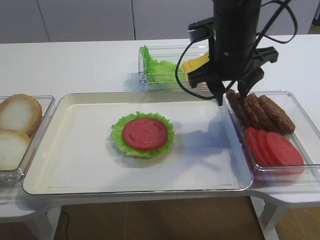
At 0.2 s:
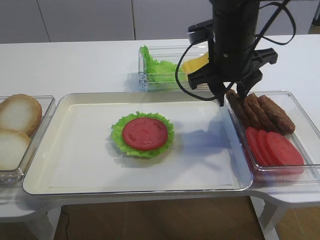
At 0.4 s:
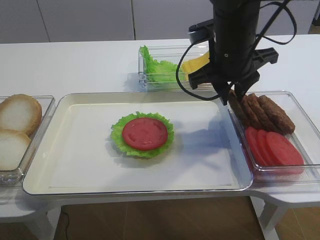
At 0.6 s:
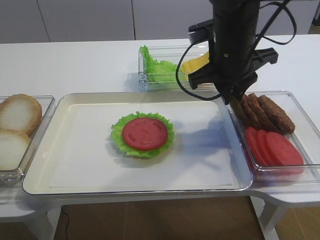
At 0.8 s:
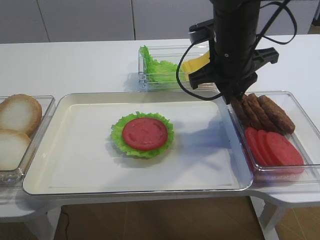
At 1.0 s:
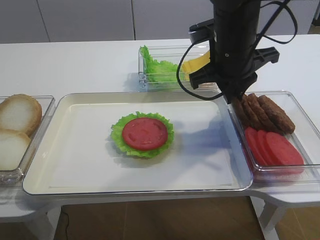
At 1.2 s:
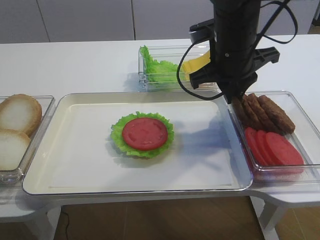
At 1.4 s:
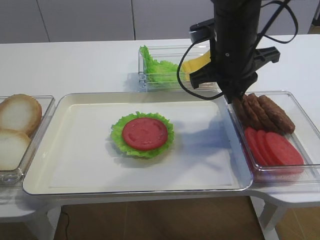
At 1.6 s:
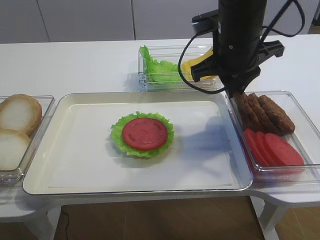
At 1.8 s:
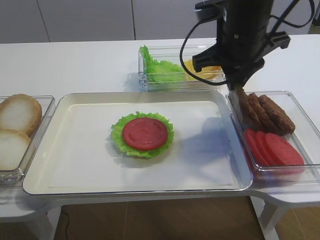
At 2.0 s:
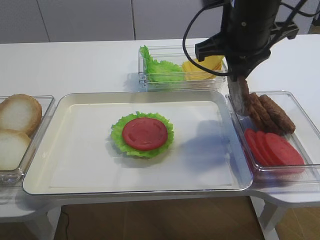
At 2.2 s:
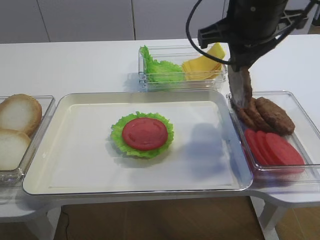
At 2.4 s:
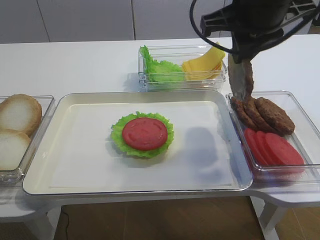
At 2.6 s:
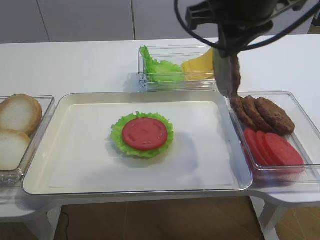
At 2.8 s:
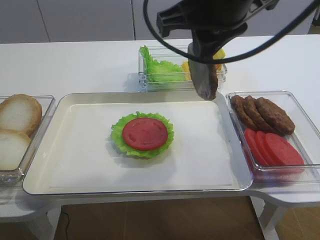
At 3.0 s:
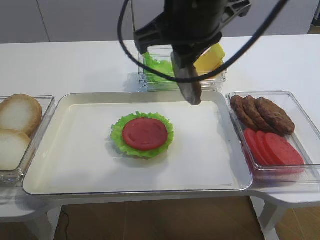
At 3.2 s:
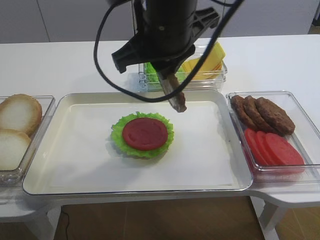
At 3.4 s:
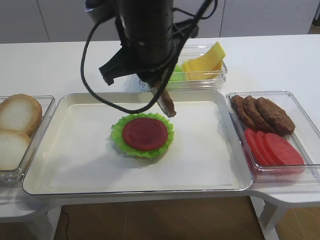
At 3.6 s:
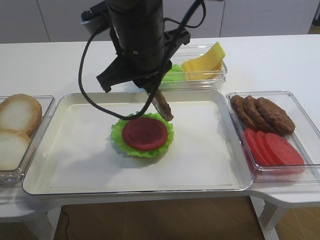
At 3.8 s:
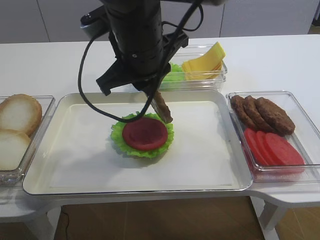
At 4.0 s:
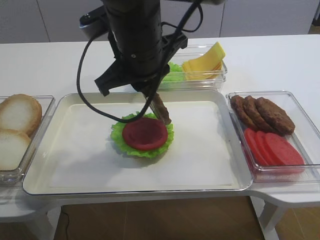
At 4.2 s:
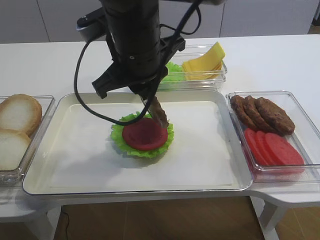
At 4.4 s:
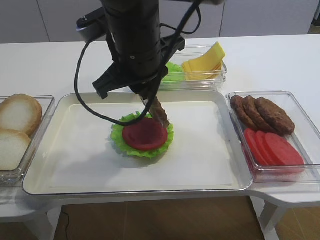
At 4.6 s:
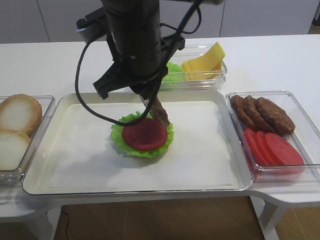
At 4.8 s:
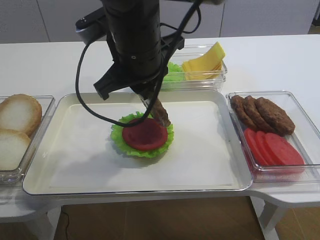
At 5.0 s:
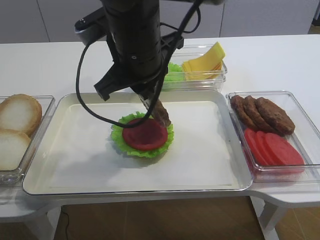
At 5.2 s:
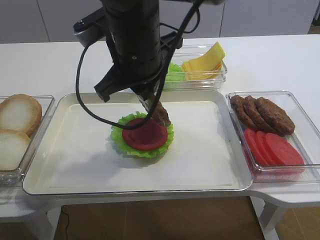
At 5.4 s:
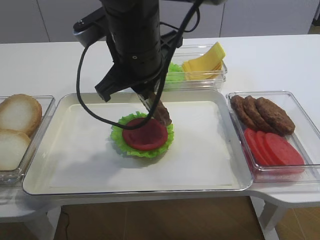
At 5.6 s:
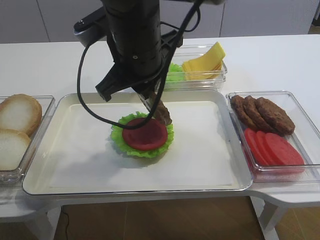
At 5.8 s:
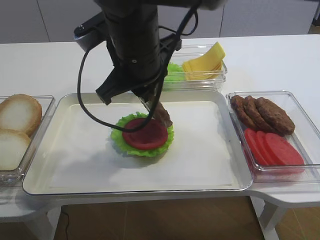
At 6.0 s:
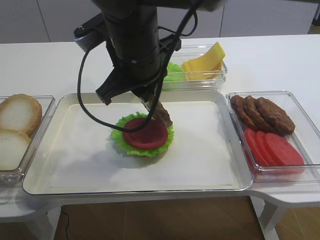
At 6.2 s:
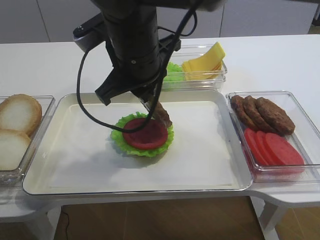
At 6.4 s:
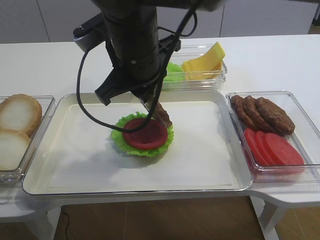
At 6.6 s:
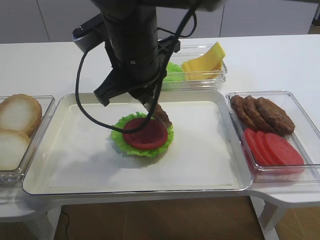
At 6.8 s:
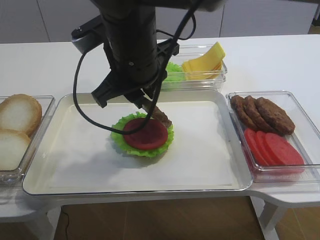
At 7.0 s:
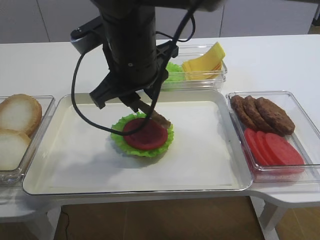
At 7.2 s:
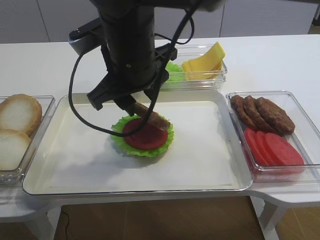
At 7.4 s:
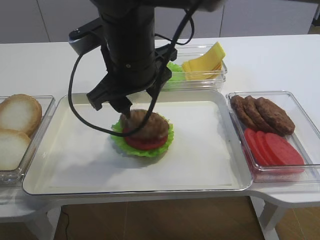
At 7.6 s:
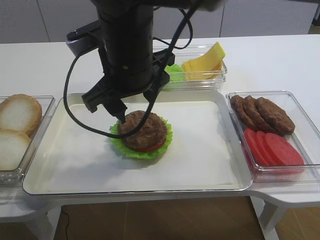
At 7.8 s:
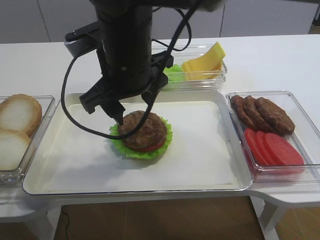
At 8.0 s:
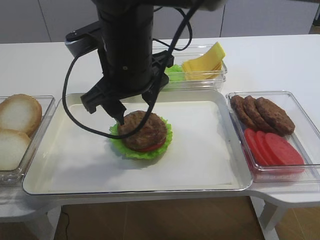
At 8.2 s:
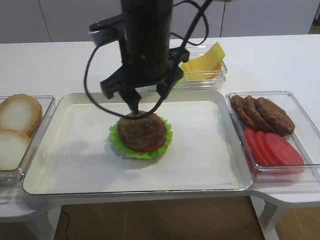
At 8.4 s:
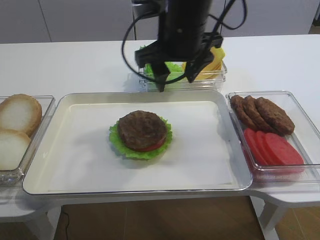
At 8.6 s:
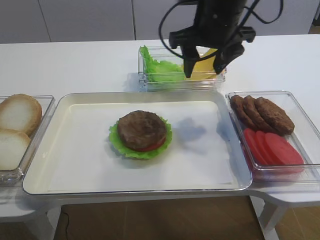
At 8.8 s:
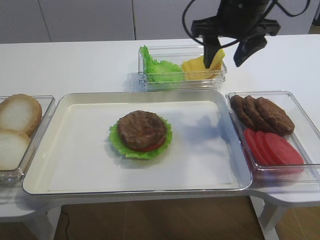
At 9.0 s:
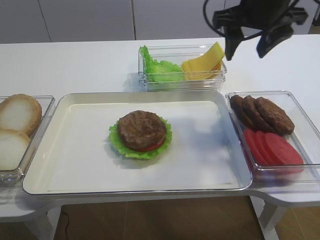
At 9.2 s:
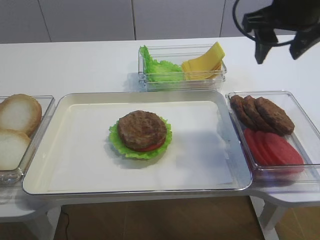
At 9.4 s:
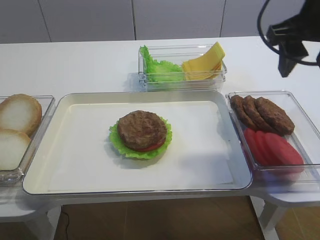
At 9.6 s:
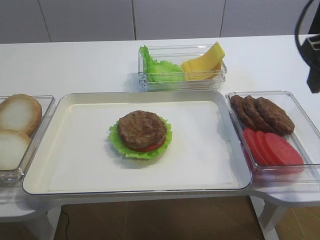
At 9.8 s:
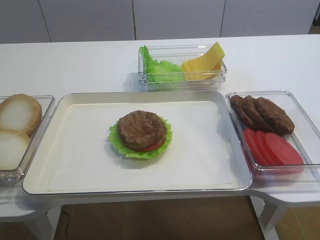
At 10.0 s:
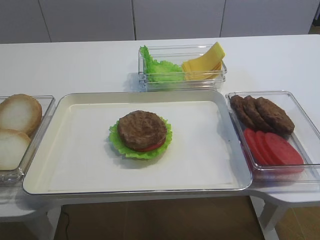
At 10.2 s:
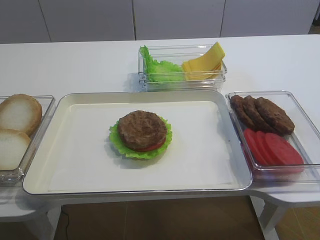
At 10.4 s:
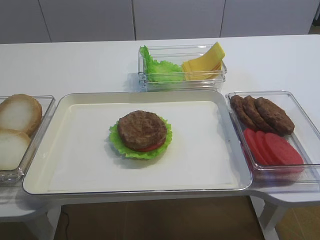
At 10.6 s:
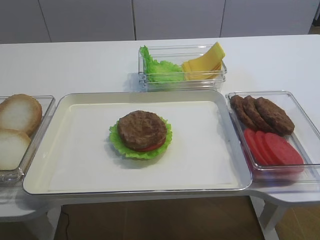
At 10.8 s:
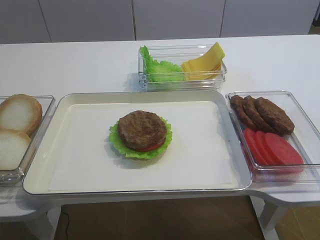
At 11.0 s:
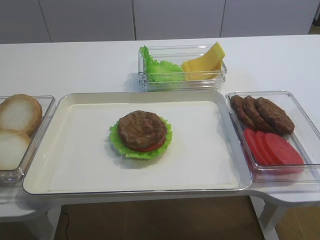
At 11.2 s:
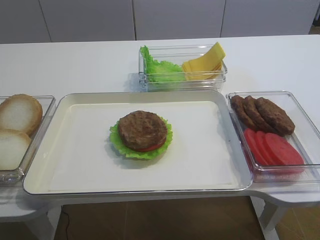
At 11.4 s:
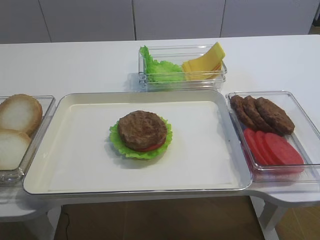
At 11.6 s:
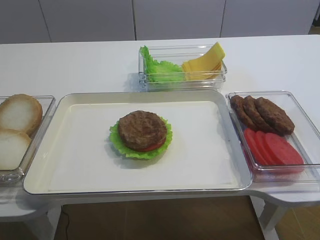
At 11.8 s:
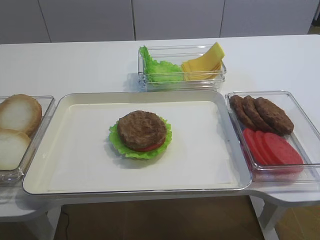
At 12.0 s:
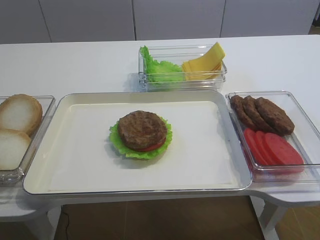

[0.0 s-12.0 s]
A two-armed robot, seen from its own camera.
Step, 2.0 to 8.0 s: Place the cutlet on the tomato slice with the right gripper.
0.0 to 1.6 s: The right gripper closes.
1.6 to 3.0 s: The right gripper heads upward, backward and to the left, covering approximately 15 cm.
3.0 to 4.4 s: The right gripper goes some 10 cm to the left and downward.
4.4 to 6.0 s: There are only small adjustments of the grippers.
6.0 to 7.6 s: The right gripper opens.
7.6 to 9.0 s: The right gripper travels to the right and forward by approximately 20 cm.
9.0 to 10.4 s: The right gripper goes about 30 cm backward.
10.4 to 12.0 s: The right gripper is displaced downward and backward by approximately 10 cm.

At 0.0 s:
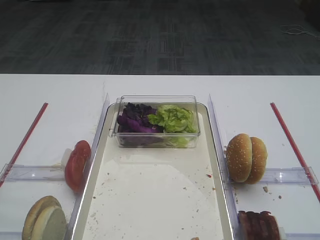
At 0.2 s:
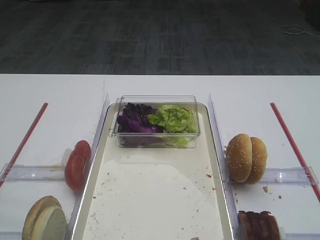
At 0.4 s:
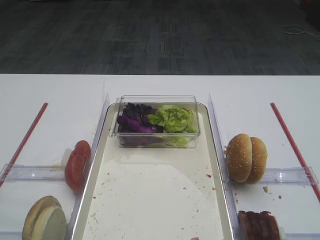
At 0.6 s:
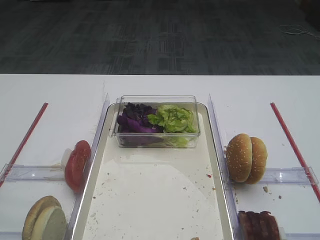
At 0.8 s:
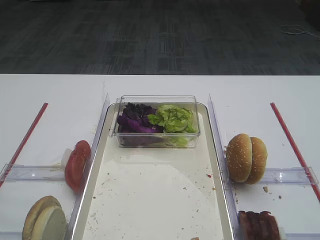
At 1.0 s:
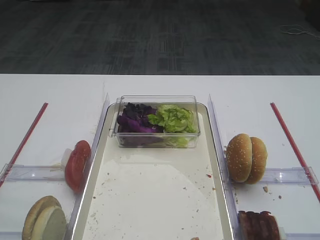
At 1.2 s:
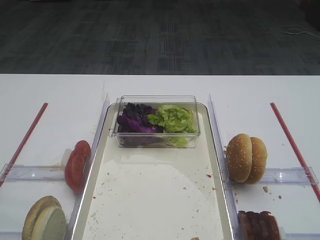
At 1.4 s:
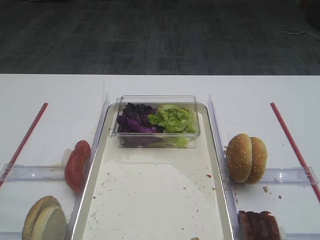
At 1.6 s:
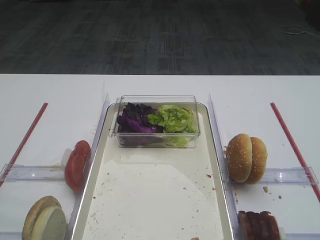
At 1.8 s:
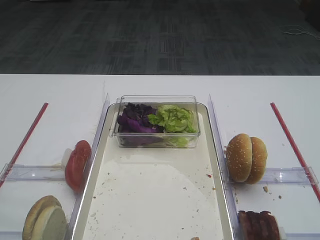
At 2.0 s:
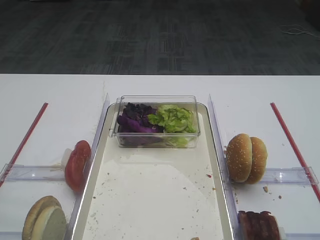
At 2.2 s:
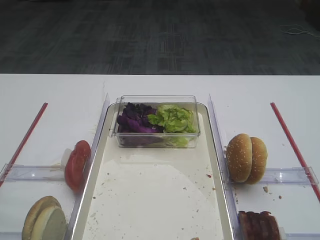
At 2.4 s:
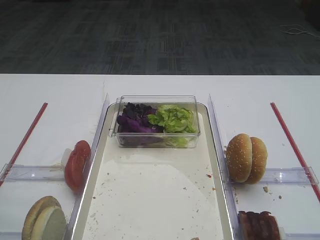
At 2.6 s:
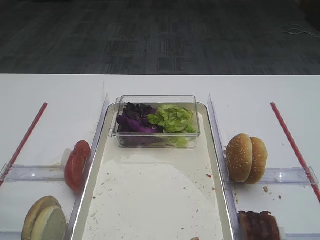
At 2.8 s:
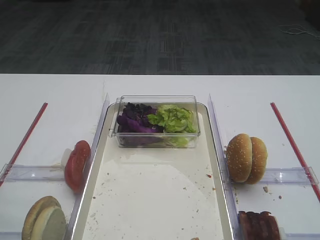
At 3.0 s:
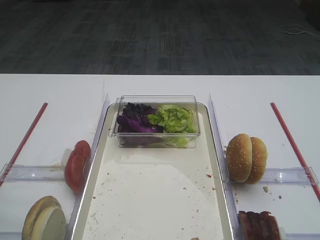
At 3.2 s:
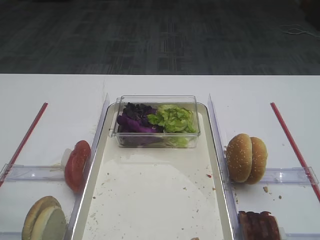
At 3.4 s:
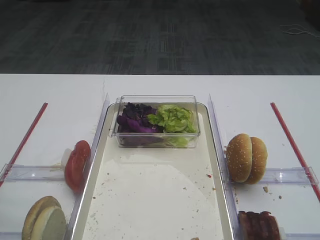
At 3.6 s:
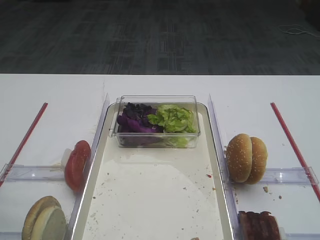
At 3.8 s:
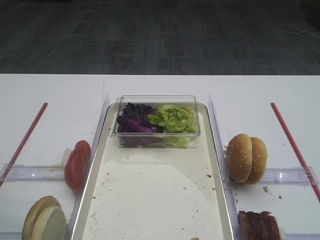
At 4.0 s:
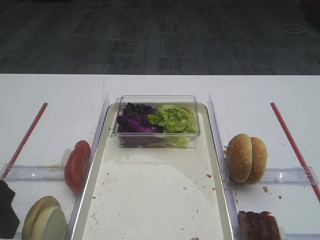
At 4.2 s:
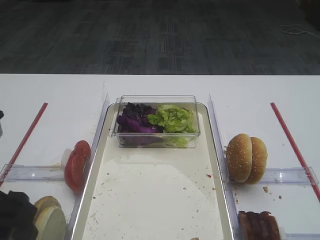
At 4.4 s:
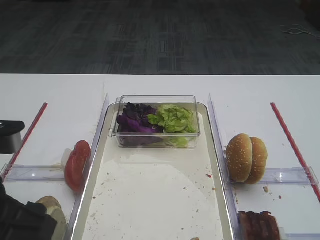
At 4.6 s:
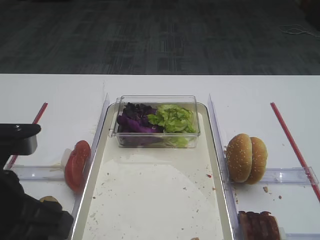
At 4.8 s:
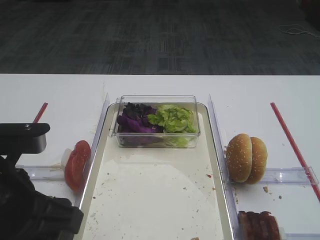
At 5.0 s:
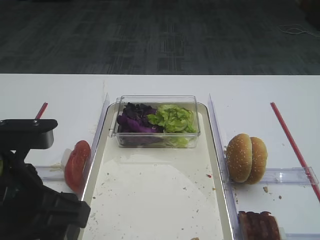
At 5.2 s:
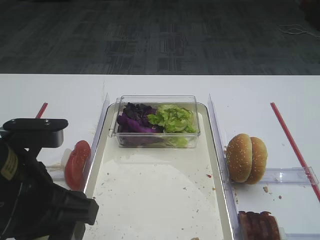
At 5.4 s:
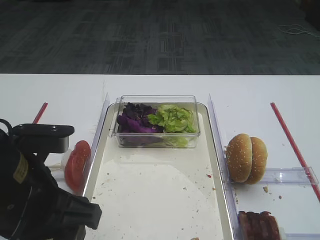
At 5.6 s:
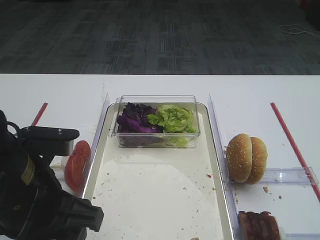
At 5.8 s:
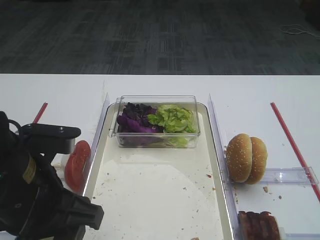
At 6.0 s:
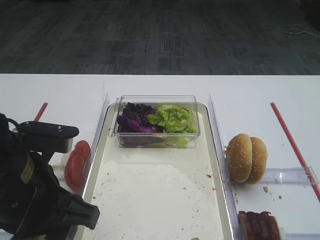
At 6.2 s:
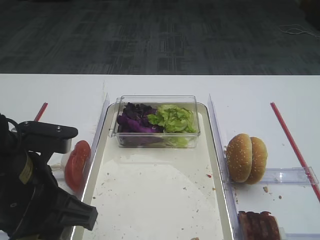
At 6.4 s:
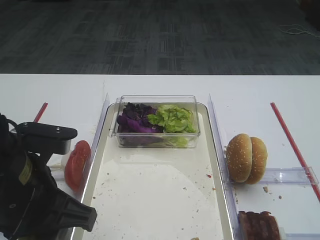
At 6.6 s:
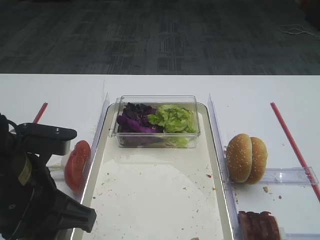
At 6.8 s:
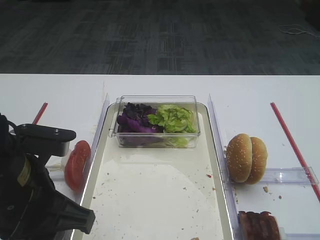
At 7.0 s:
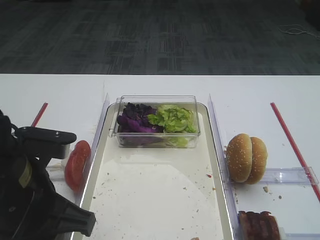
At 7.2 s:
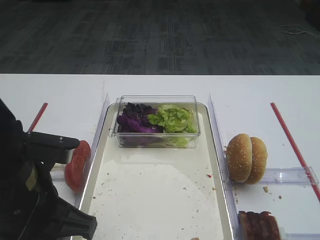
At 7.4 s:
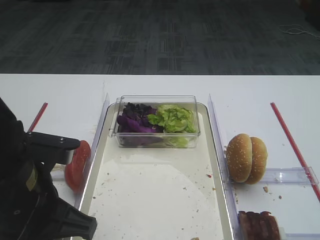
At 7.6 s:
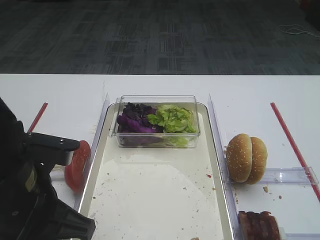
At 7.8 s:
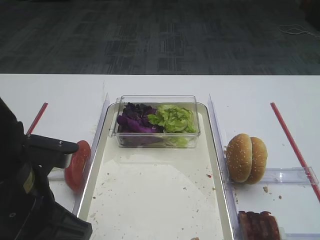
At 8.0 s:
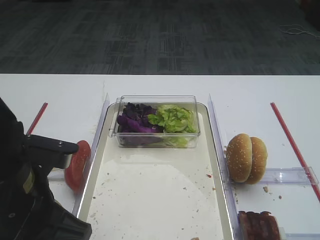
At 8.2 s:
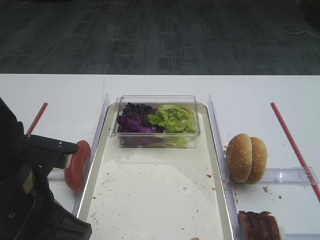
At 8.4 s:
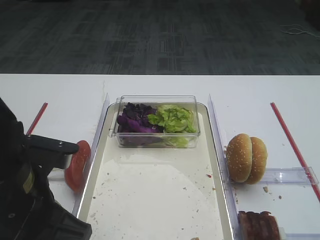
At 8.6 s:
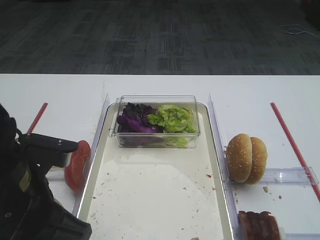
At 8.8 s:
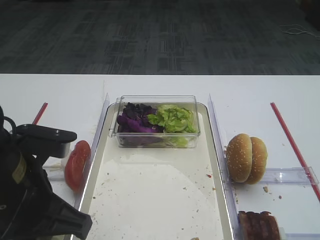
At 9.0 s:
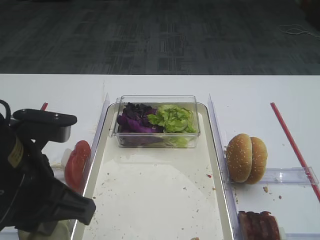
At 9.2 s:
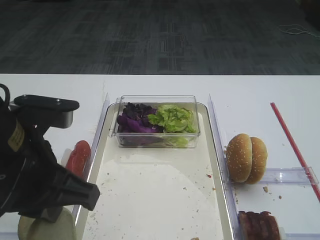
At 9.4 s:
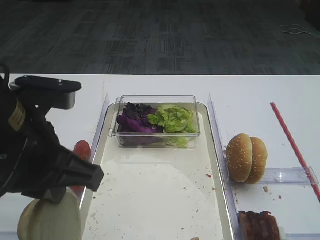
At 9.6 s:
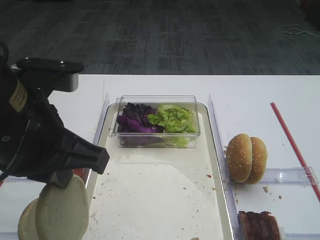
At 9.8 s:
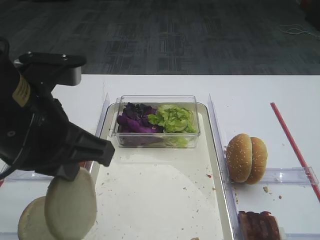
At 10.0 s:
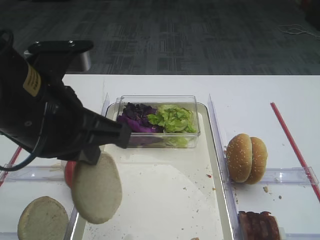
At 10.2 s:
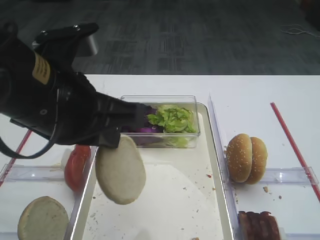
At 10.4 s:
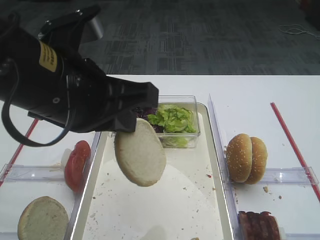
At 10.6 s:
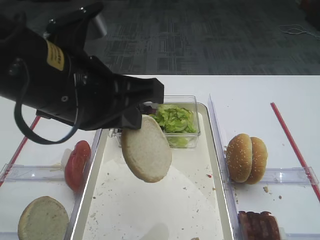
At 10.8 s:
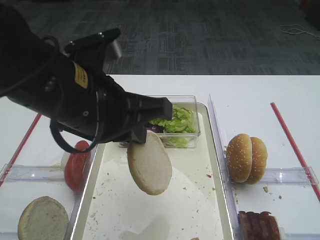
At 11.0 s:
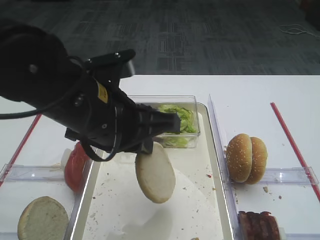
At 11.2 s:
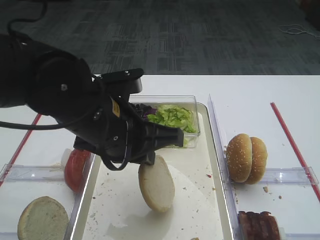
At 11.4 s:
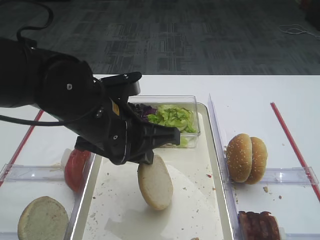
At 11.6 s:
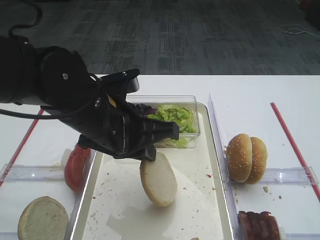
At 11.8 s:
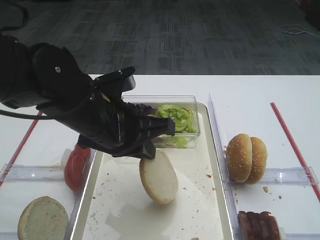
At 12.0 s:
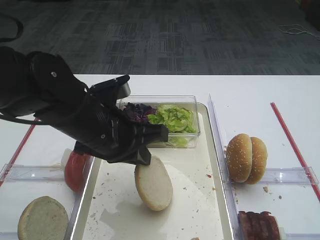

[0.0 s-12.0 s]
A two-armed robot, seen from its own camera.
Step, 0.0 to 7.8 s: Pick up the bread slice with the left gripper.
3.0 to 4.4 s: The left gripper travels to the right by some 10 cm.
4.4 to 6.0 s: The left gripper ends up some 5 cm from where it was.
6.0 to 7.6 s: The left gripper closes up.
7.6 to 9.0 s: The grippers move only a little.
9.0 to 10.4 s: The left gripper is displaced upward by approximately 5 cm.
10.4 to 12.0 s: The left gripper heads downward and forward, covering some 15 cm.
